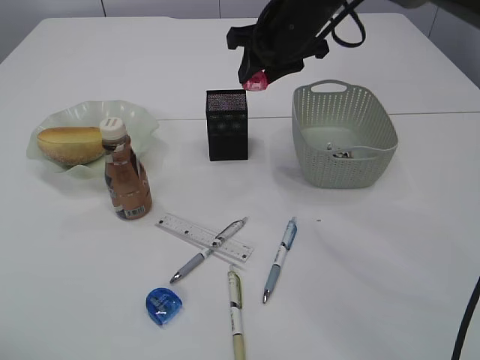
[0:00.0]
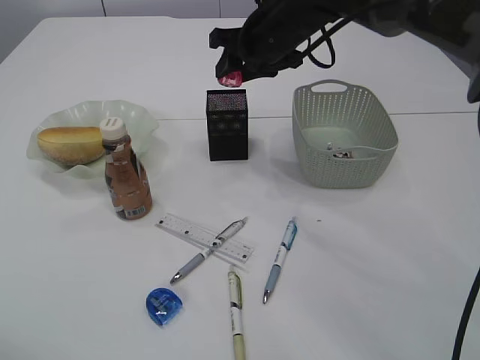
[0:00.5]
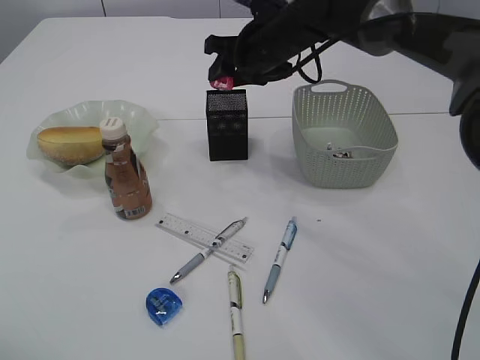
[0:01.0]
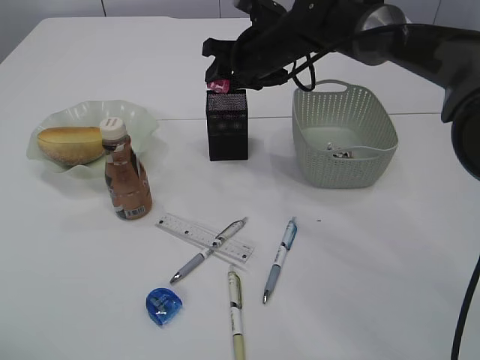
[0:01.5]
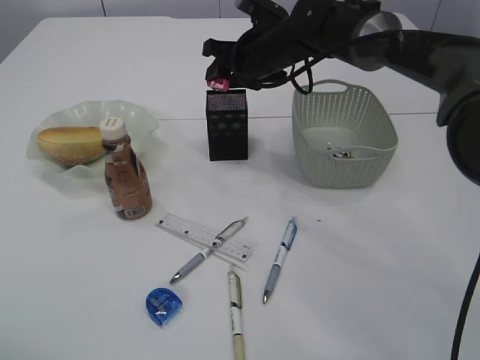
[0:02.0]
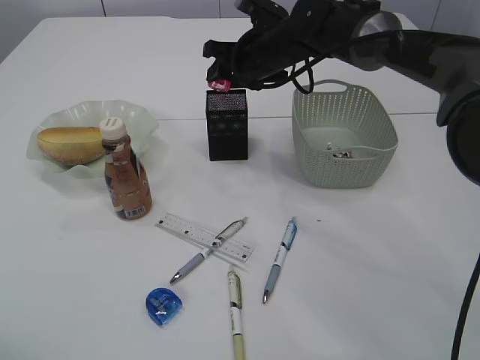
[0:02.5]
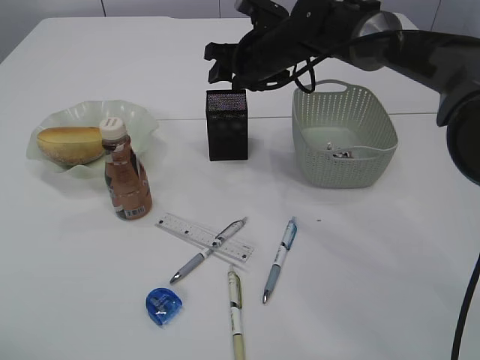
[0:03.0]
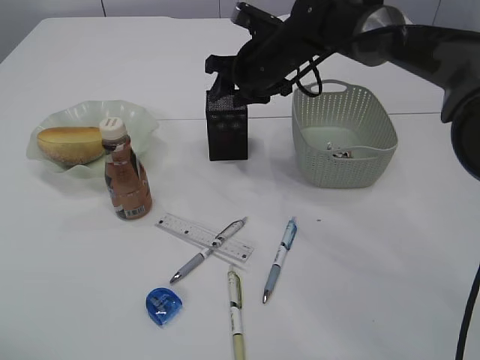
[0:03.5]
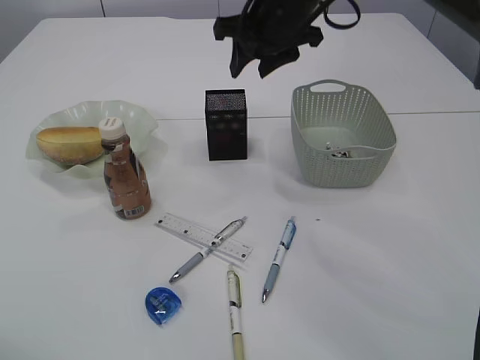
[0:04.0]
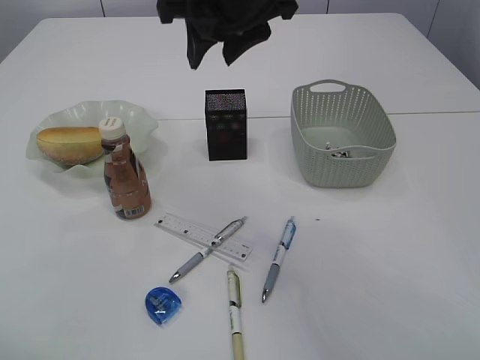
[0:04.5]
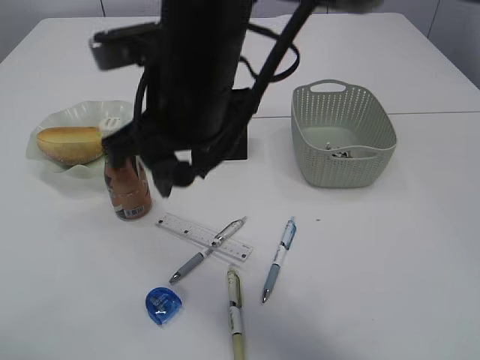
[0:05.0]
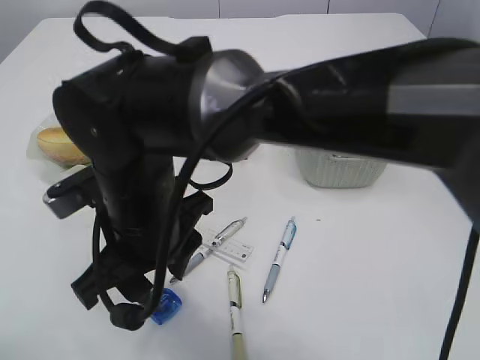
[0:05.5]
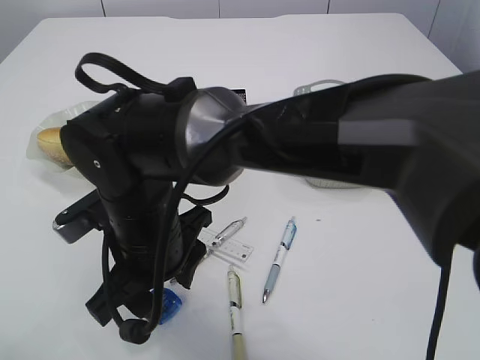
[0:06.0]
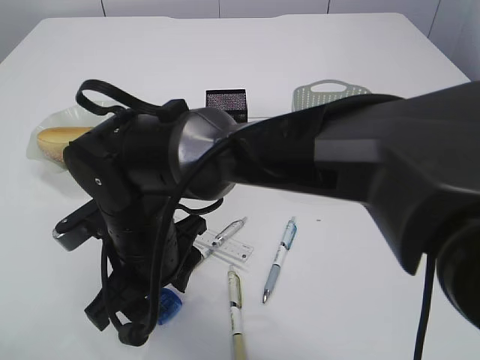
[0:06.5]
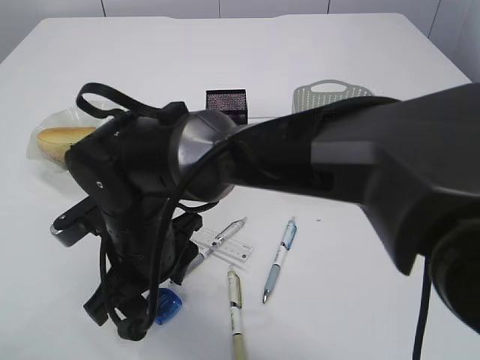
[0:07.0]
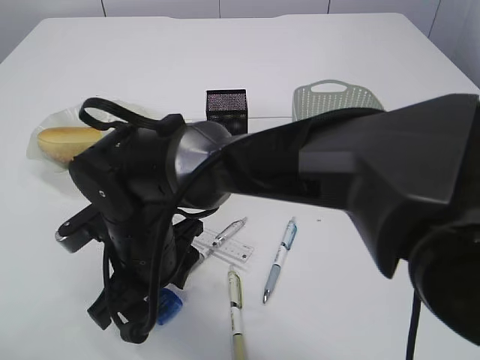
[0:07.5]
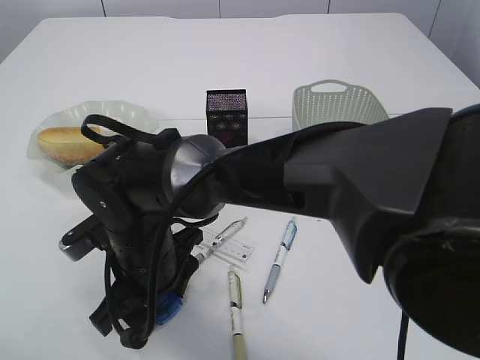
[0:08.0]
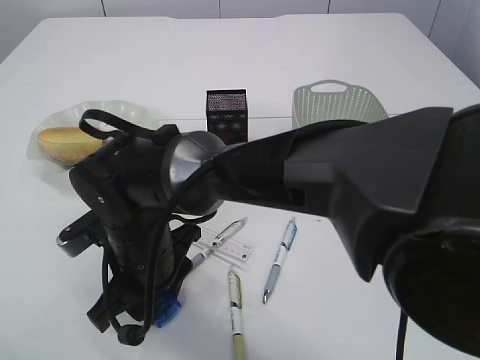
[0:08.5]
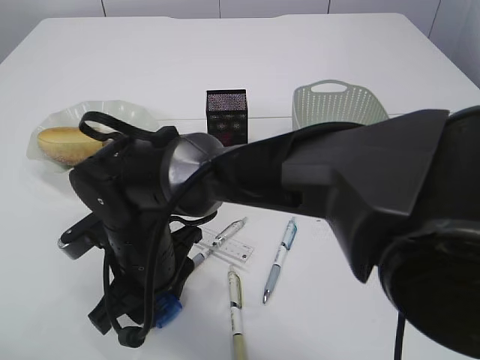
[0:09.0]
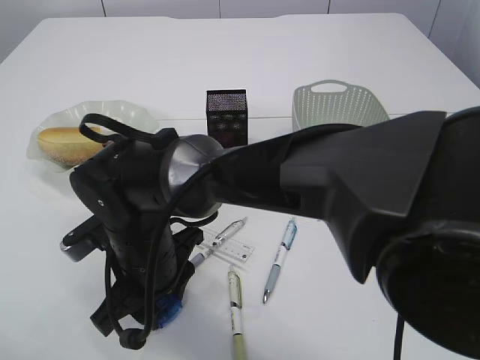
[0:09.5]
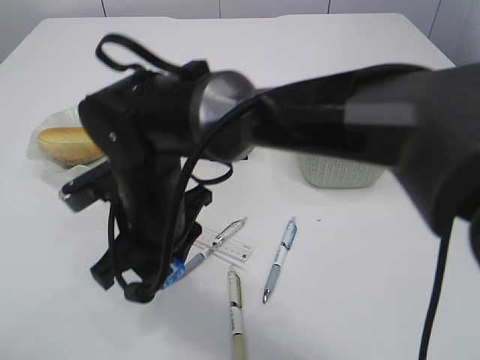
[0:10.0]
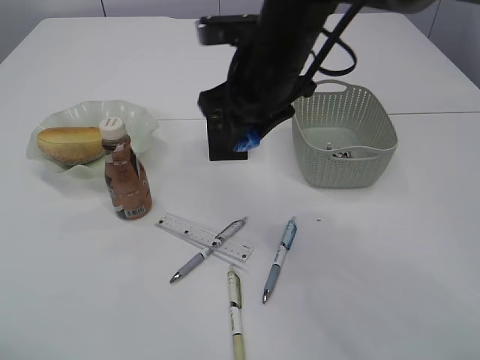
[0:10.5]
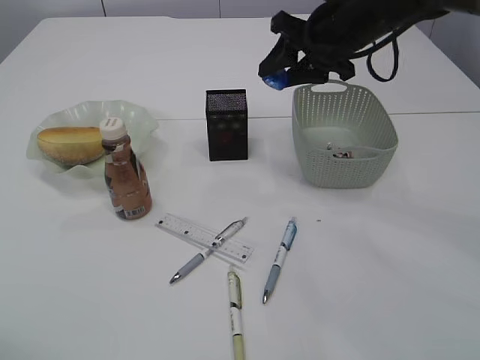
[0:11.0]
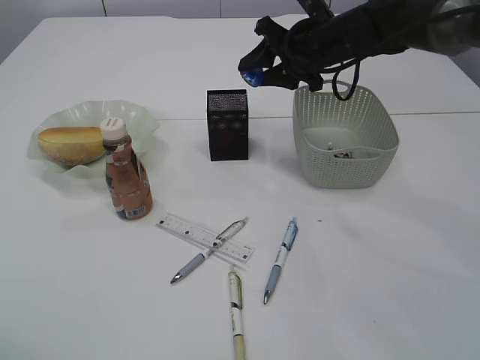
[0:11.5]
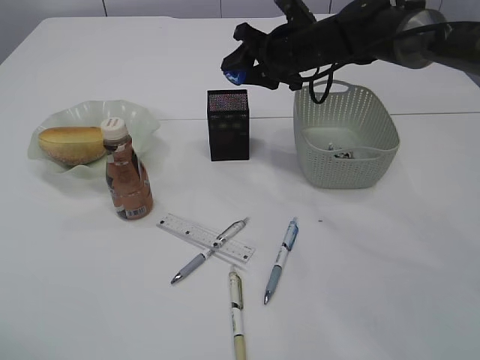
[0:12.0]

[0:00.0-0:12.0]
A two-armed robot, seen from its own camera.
Step, 0:00.0 to 0:03.0: Place the red pencil sharpener into the pen holder.
Step, 0:03.5 to 0:09.5: Pick up the blue pencil sharpener.
0:00.0 to 0:02.0: The right gripper shifts about 5 cm downward.
0:02.0 to 0:04.0: The right gripper travels upward and backward by approximately 10 cm.
0:04.0 to 0:06.0: The right gripper goes approximately 30 cm backward, to the left and downward.
0:06.0 to 0:08.0: The right gripper ends up some 5 cm from where it was.
0:08.0 to 0:10.0: The right gripper is displaced upward by approximately 5 cm.
0:10.0 to 0:12.0: The right gripper travels forward and to the right by some 30 cm.

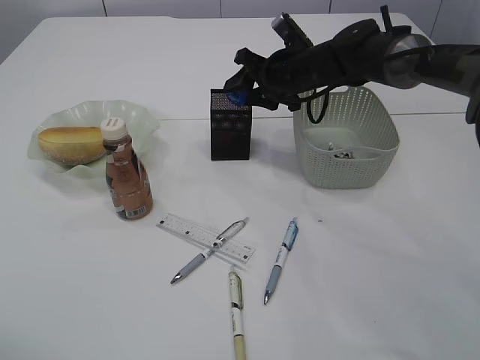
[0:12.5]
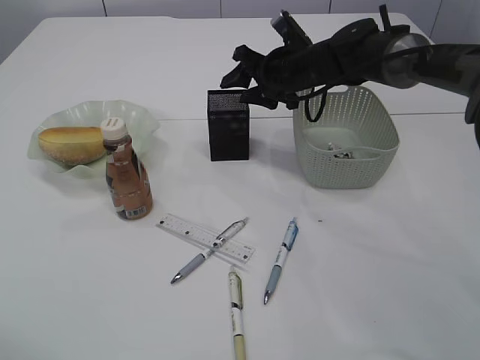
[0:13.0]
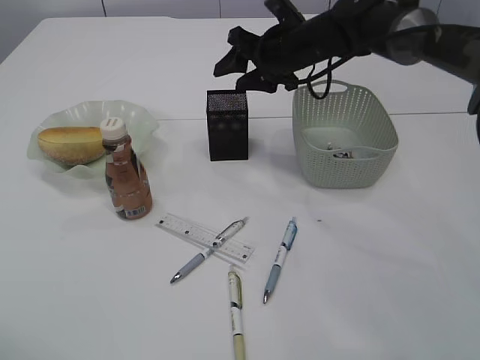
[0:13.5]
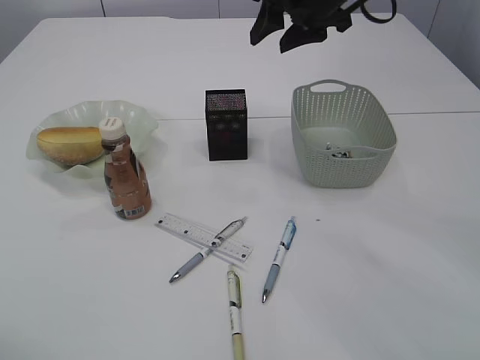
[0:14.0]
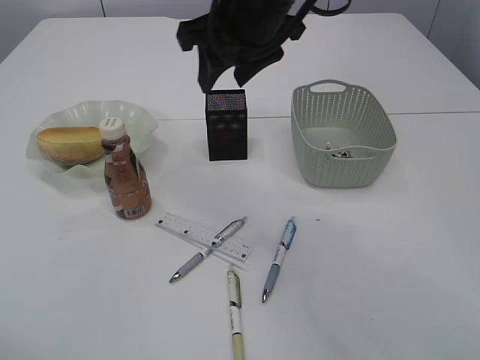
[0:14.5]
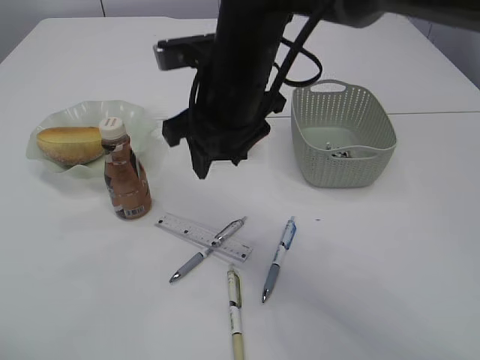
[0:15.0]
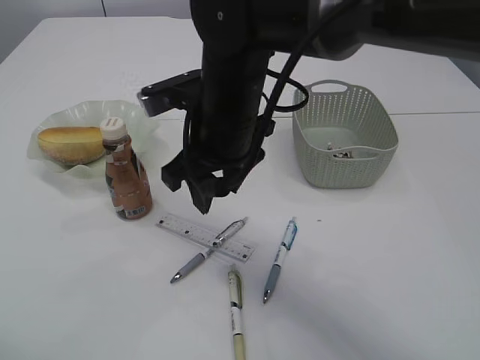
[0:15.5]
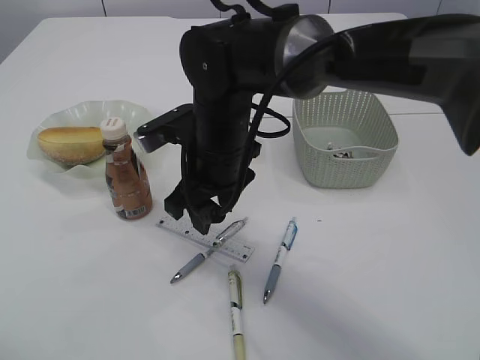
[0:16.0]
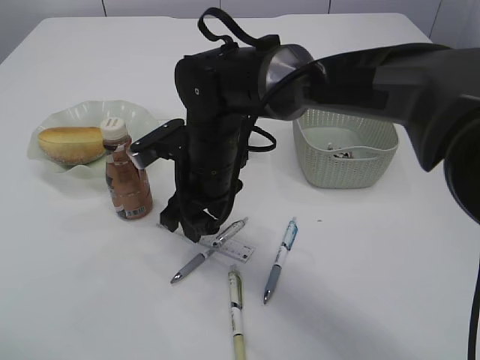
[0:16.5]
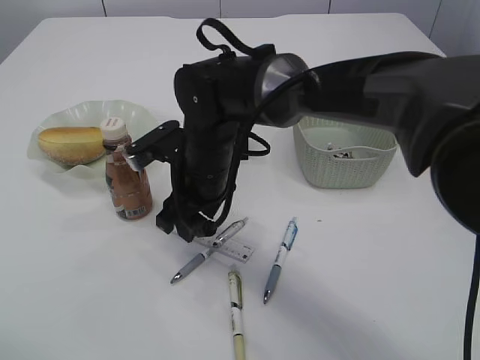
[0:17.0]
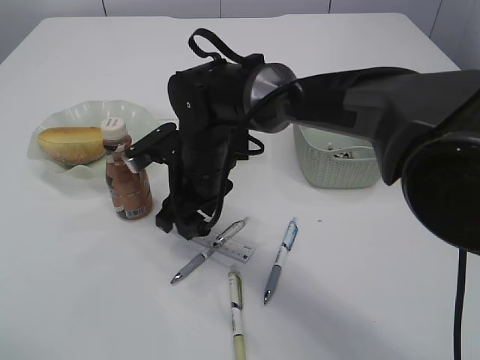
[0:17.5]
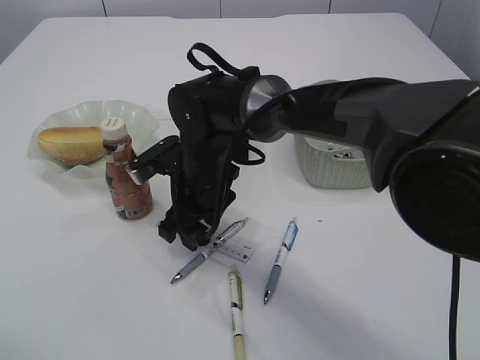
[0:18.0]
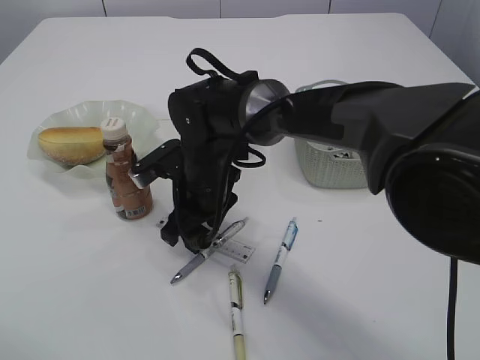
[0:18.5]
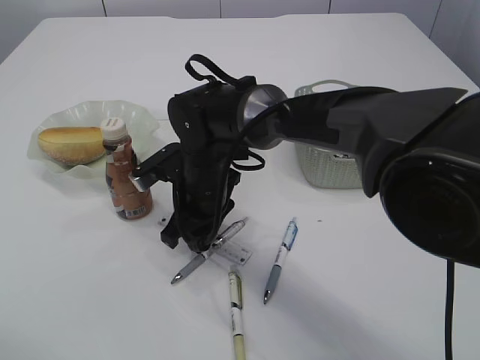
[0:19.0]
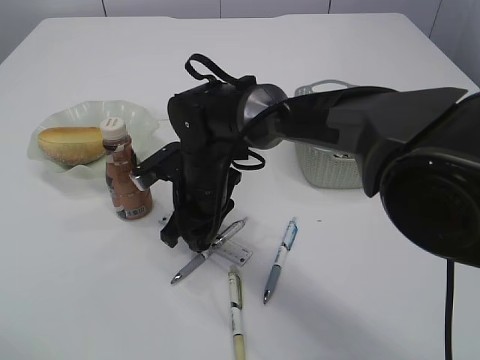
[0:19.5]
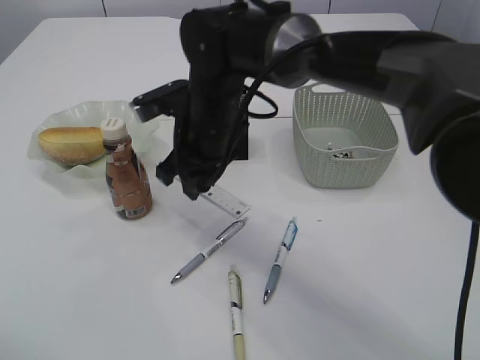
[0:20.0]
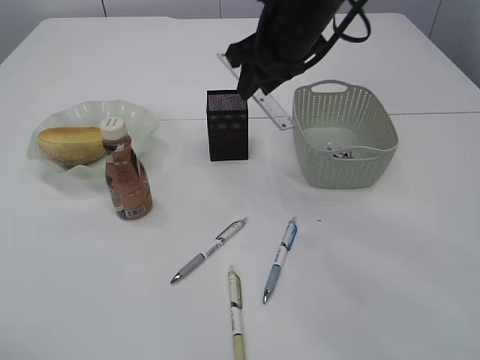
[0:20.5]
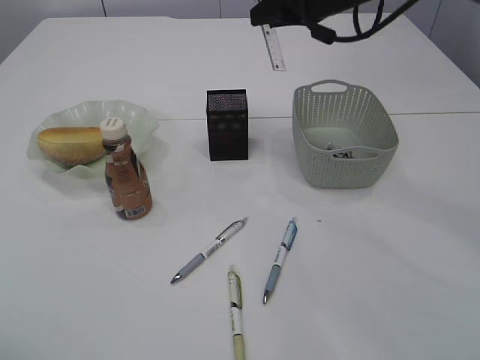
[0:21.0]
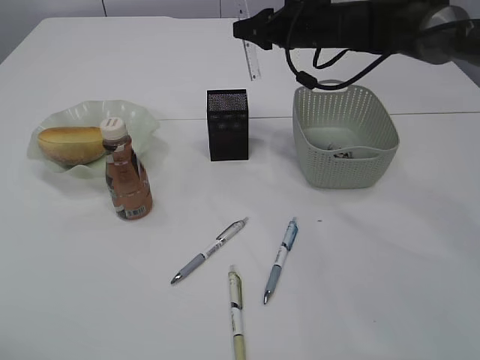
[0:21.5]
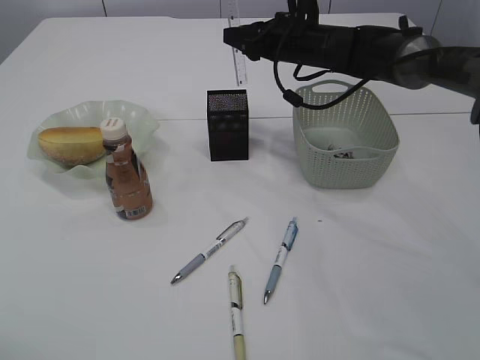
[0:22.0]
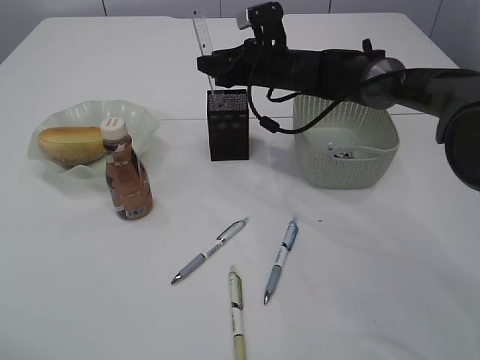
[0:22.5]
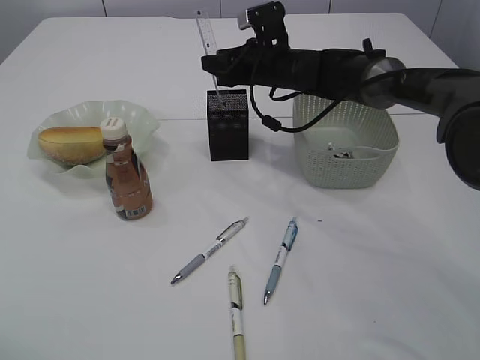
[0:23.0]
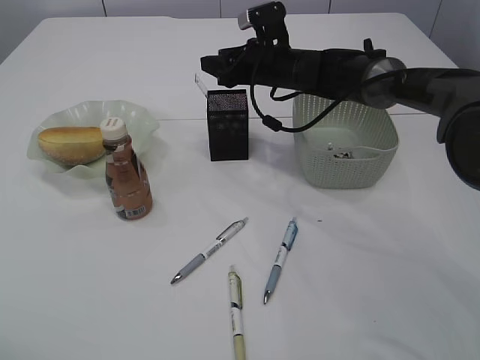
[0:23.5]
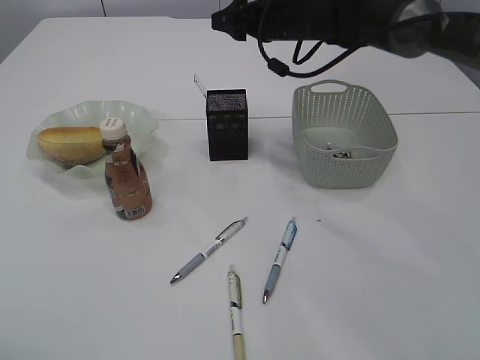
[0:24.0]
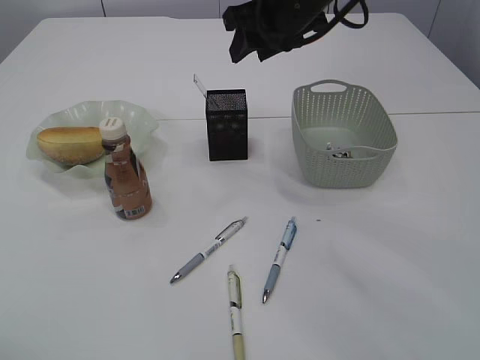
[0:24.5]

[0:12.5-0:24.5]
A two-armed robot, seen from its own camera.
Step, 0:13.5 to 0:20.0: pick up the ruler.
Step, 0:20.5 to 0:23.5: Place the ruler into the pen holder.
0:12.5 to 0:14.5: The right gripper moves upward, backward and to the left, approximately 20 cm.
0:14.5 to 0:16.5: The right gripper heads downward and to the left, covering some 20 cm.
0:16.5 to 0:18.5: There are only small adjustments of the grippers.
0:18.5 to 0:20.5: The right gripper goes roughly 20 cm upward and to the right.
0:20.5 to 0:22.5: The right gripper moves downward and forward, some 15 cm.
0:22.5 to 0:24.5: The right gripper moves upward and backward, approximately 15 cm.

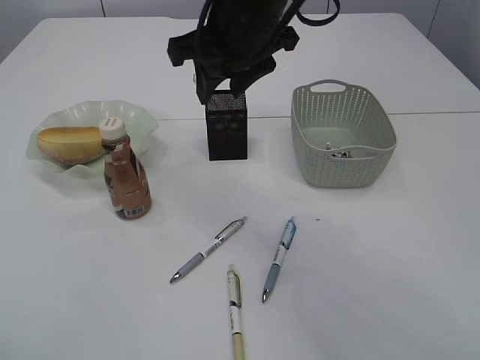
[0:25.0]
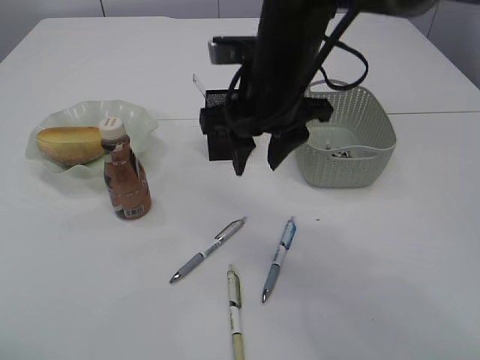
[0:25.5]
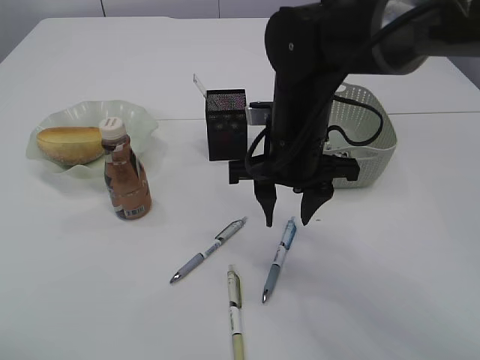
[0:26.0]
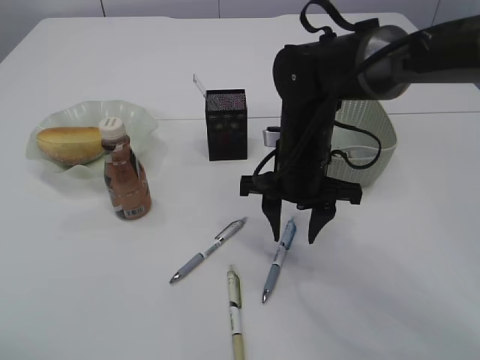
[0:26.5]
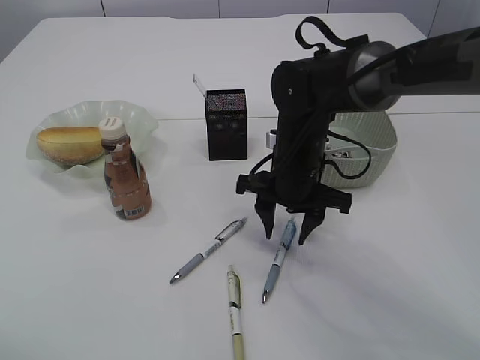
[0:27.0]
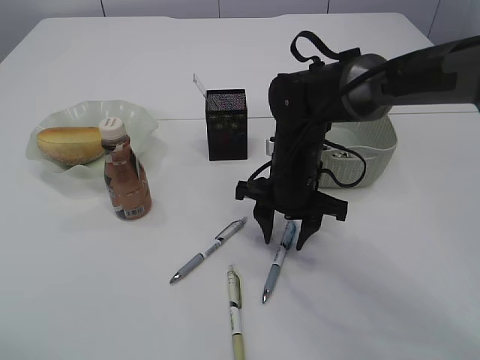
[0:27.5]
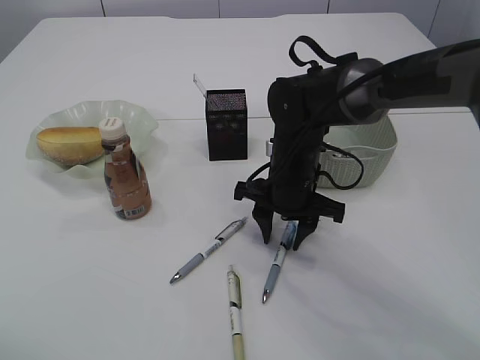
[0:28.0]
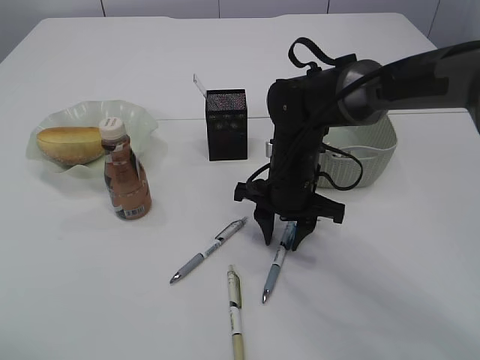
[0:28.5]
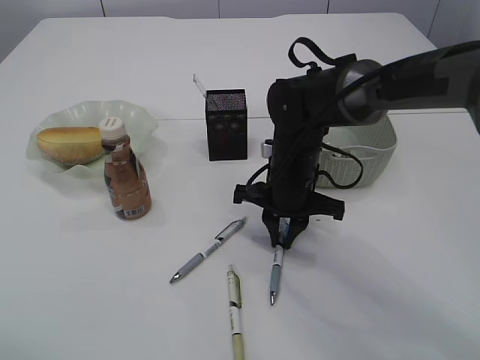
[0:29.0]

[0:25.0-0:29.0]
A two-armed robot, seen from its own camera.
0:25.0 to 0:27.0: The right gripper is displaced downward by roughly 20 cm.
0:27.0 to 0:29.0: The right gripper closes up.
